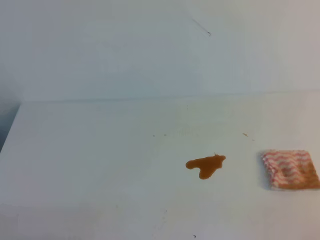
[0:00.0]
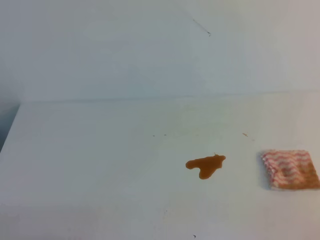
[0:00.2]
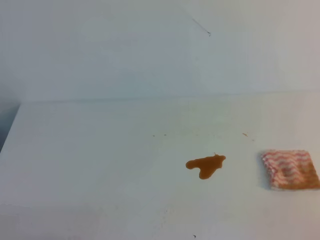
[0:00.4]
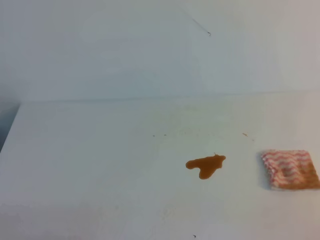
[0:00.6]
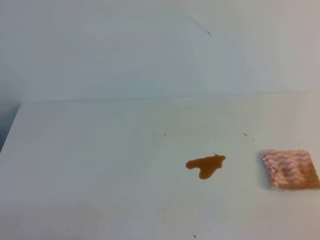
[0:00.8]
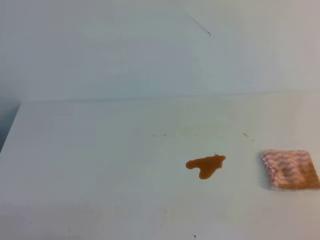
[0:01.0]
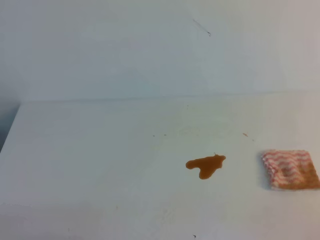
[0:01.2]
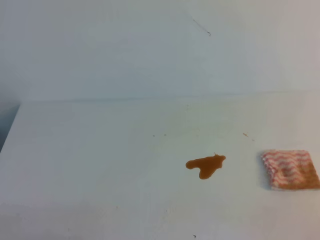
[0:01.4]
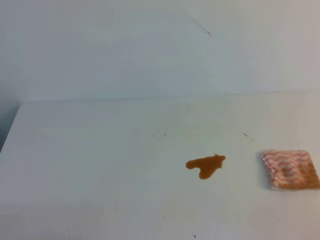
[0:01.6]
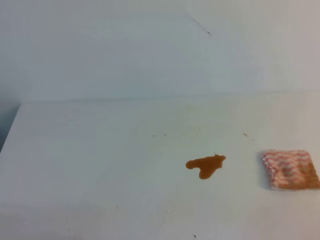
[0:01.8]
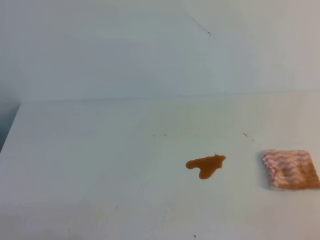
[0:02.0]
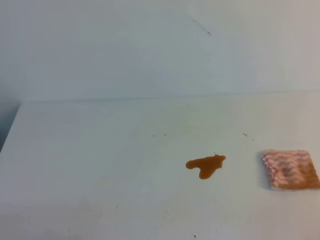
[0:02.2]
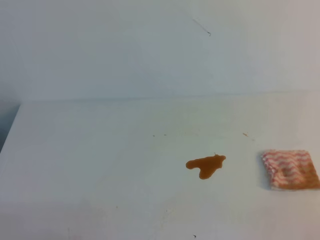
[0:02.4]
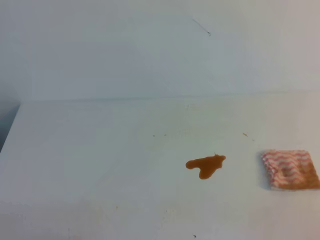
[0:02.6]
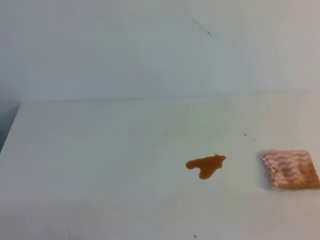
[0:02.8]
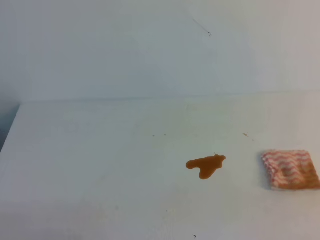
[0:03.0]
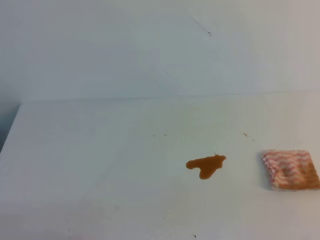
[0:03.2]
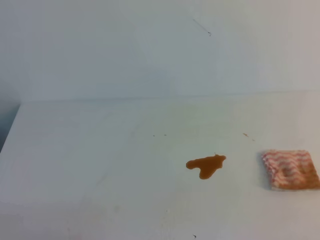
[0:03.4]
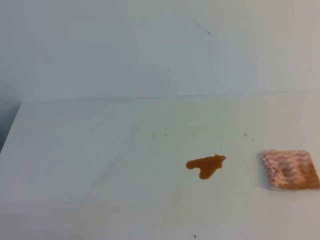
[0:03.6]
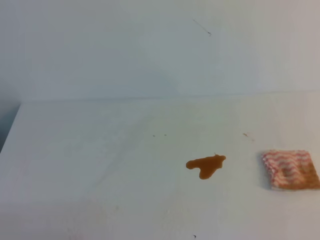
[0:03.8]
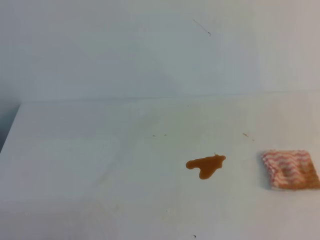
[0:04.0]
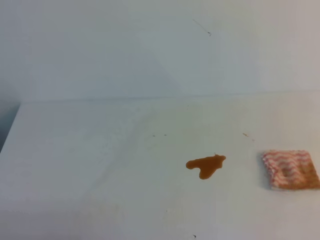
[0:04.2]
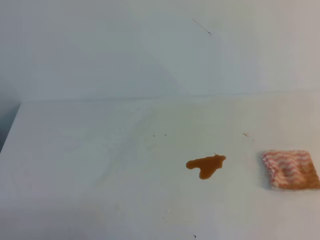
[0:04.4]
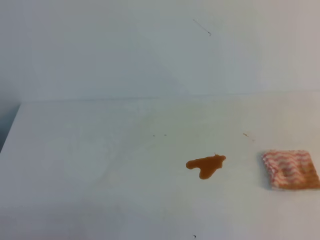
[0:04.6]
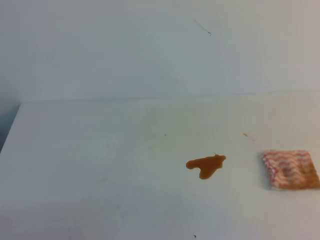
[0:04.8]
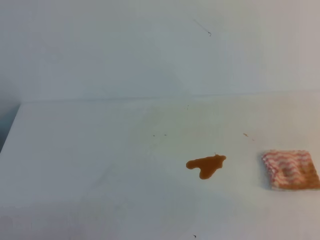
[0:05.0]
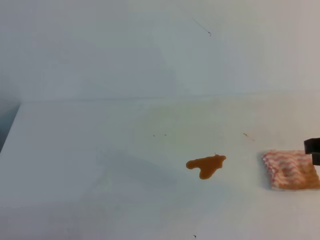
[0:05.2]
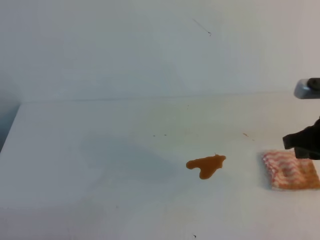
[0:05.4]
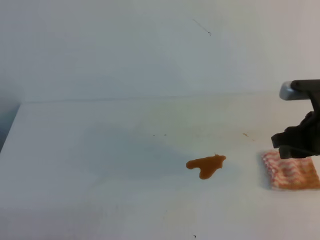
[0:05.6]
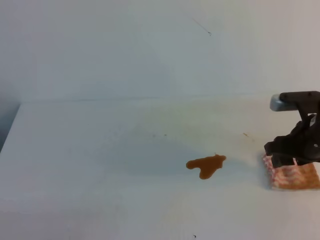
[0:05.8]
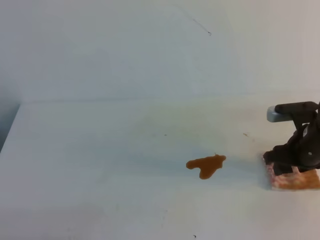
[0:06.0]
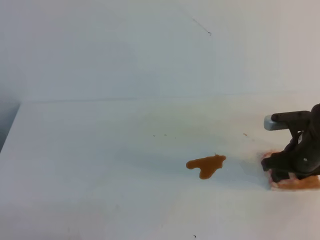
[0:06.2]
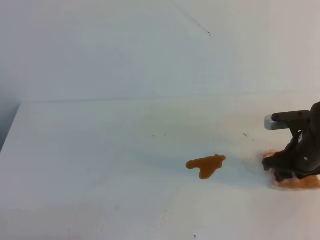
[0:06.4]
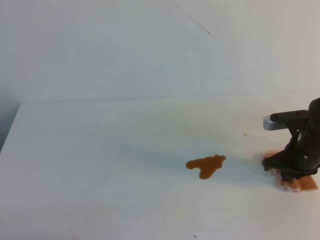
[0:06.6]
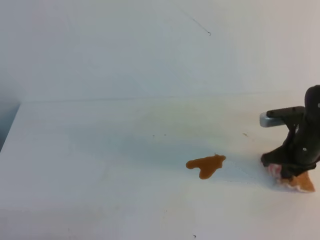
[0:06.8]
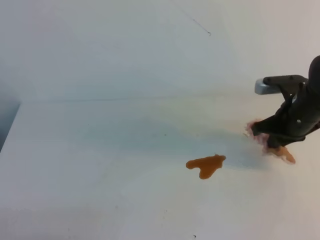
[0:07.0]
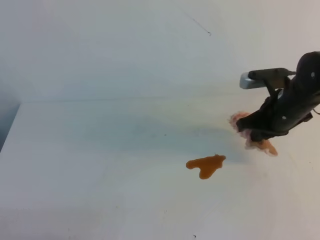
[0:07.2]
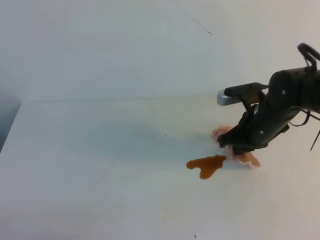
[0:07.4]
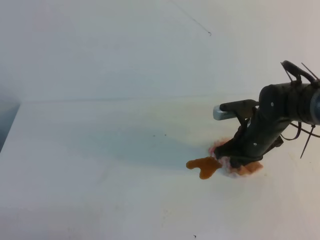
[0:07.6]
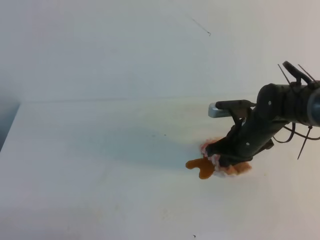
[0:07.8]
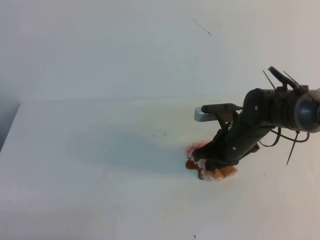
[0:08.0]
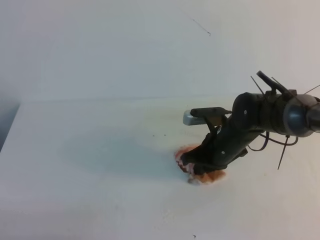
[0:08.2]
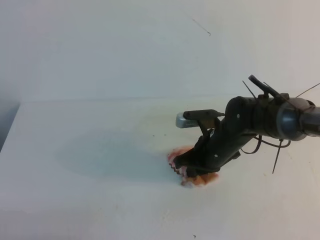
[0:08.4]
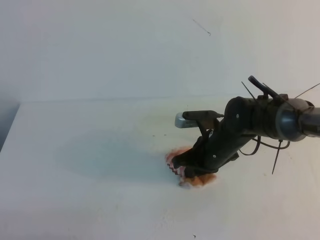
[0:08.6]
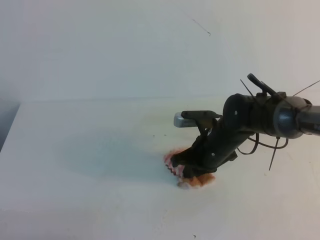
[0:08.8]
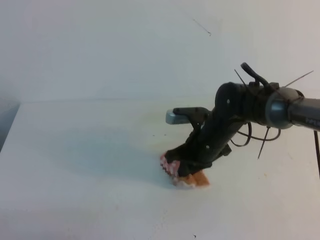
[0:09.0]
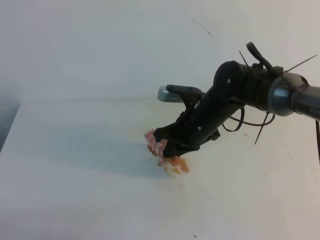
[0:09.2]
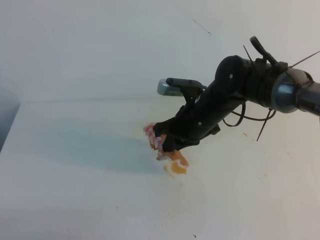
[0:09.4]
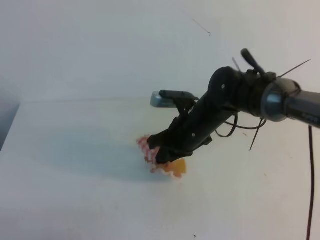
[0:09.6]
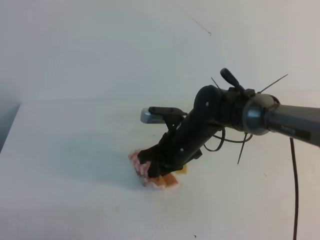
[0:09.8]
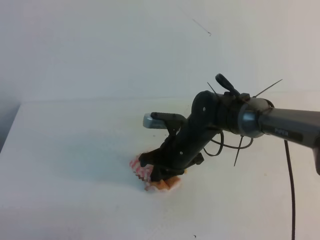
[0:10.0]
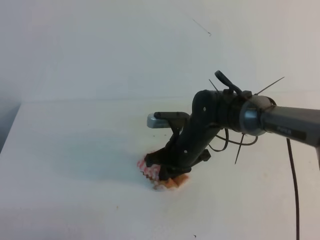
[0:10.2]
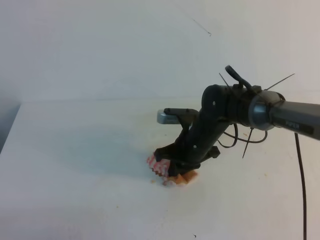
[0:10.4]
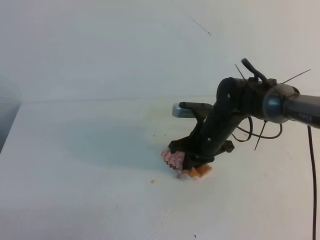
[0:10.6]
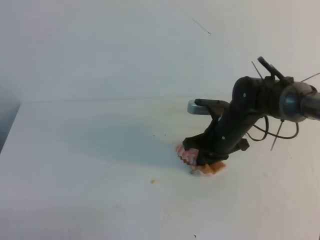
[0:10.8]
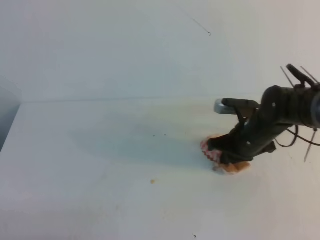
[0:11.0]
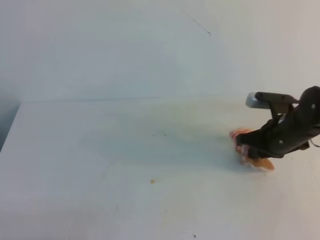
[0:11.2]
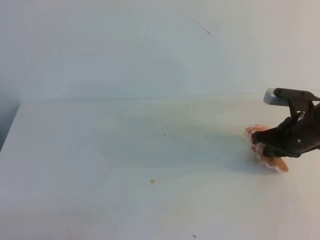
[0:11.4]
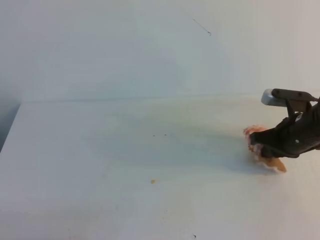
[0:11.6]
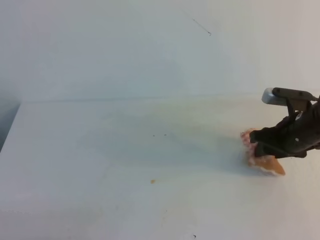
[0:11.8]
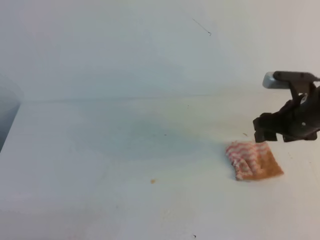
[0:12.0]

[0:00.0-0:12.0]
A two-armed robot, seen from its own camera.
0:00.0 to 0:01.6: Both grippers stay put.
0:04.4 to 0:06.0: The right gripper moves forward and downward, some 30 cm, and opens its fingers.
0:06.0 to 0:07.6: The right gripper heads to the left, covering roughly 10 cm, and closes its fingers.
0:07.6 to 0:09.0: The right gripper shifts roughly 10 cm to the left.
0:09.0 to 0:10.4: There are only small adjustments of the grippers.
0:10.4 to 0:12.0: The right gripper is displaced to the right and upward by approximately 20 cm, and opens up.

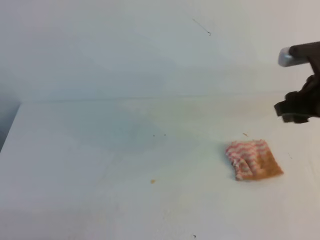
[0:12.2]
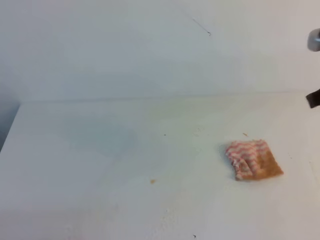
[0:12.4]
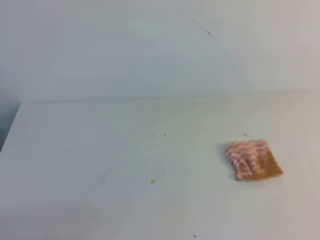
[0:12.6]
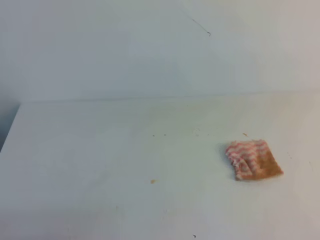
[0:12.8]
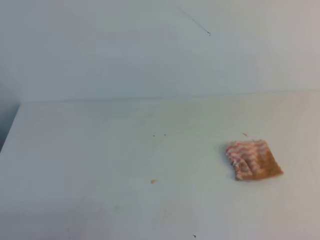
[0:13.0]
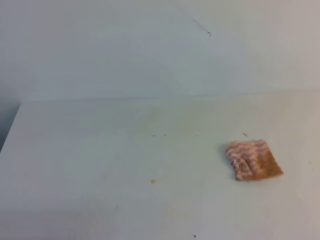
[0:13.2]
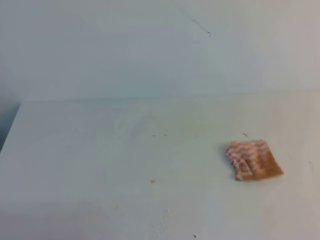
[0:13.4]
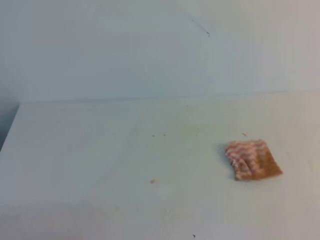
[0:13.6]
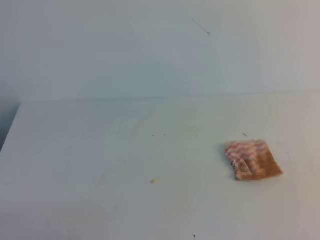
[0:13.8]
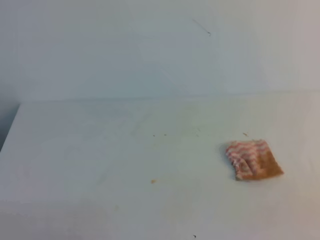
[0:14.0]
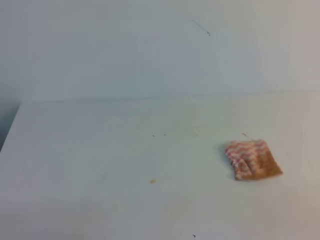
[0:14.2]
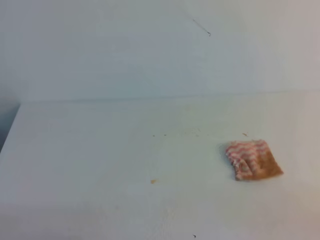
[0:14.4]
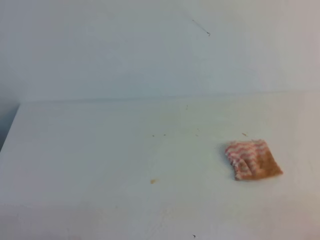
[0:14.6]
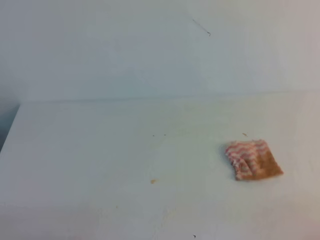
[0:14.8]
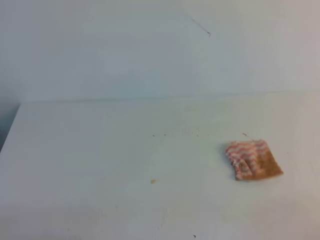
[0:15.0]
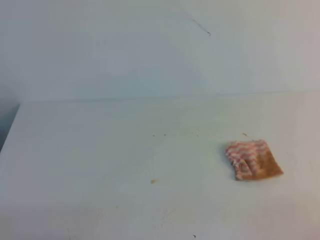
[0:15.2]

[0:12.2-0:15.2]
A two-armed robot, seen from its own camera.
0:12.2 to 0:13.8: The right gripper travels backward by roughly 30 cm, and closes up.
